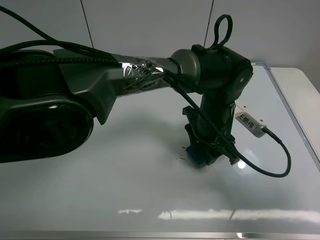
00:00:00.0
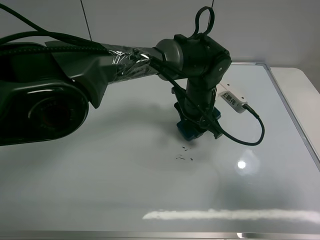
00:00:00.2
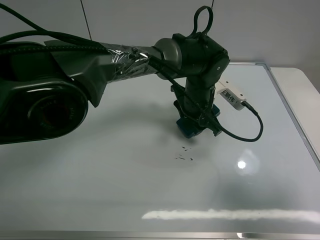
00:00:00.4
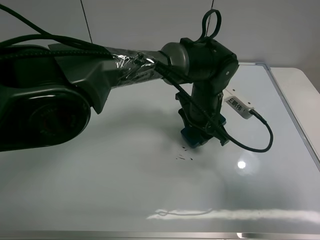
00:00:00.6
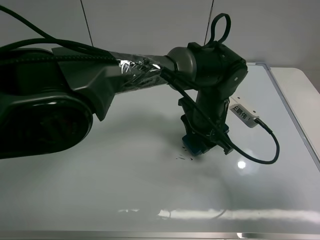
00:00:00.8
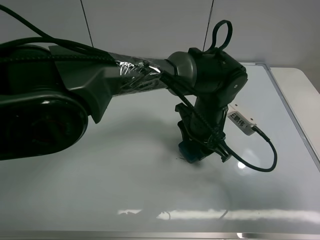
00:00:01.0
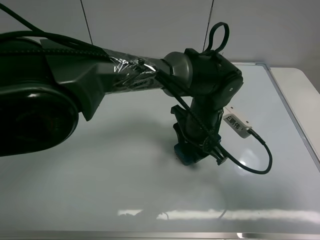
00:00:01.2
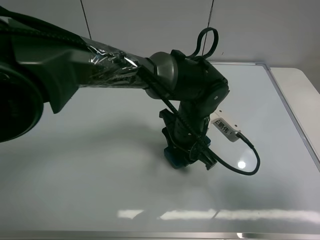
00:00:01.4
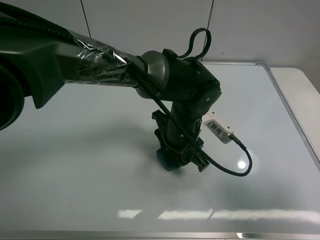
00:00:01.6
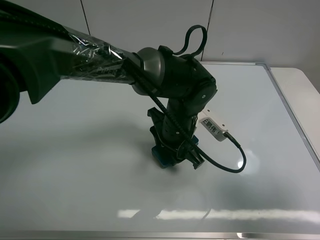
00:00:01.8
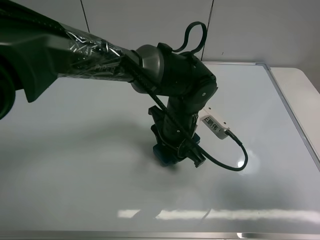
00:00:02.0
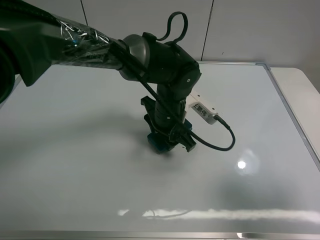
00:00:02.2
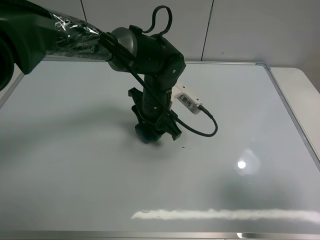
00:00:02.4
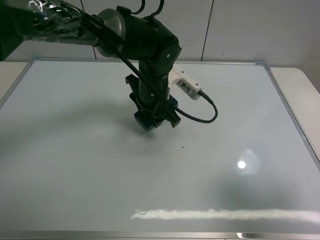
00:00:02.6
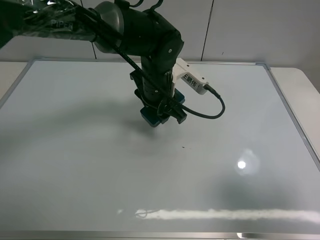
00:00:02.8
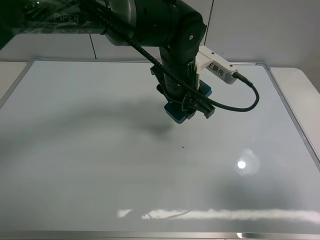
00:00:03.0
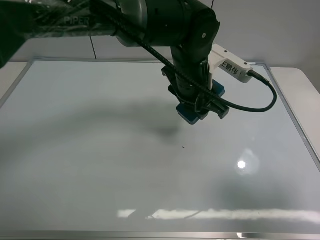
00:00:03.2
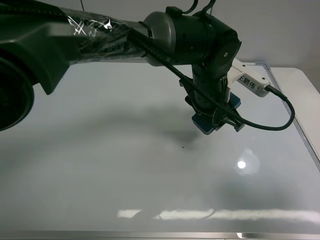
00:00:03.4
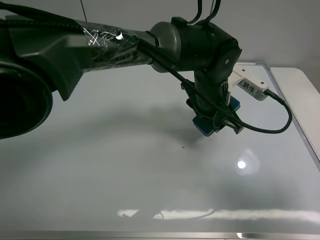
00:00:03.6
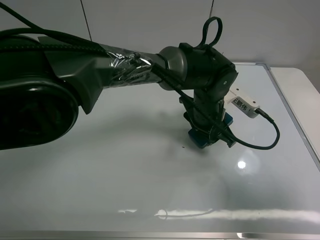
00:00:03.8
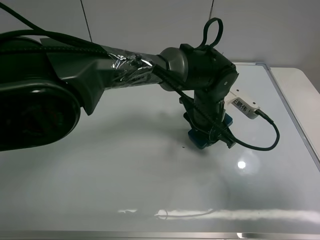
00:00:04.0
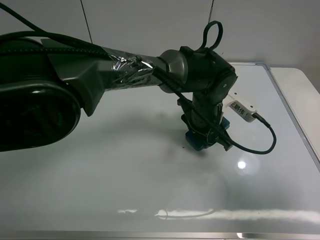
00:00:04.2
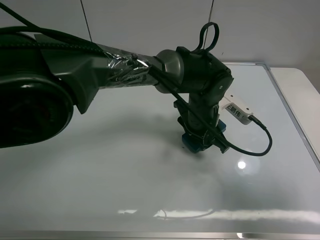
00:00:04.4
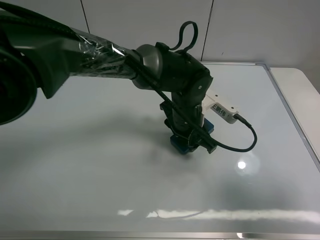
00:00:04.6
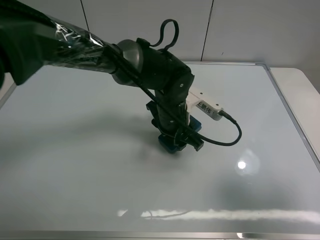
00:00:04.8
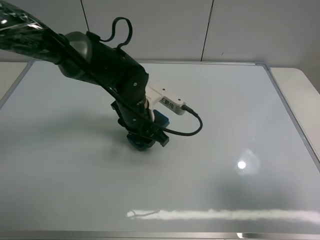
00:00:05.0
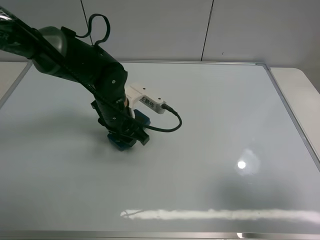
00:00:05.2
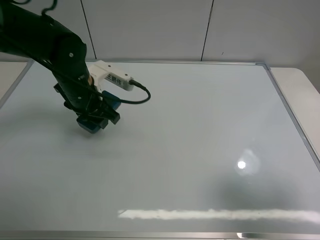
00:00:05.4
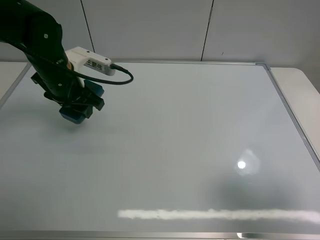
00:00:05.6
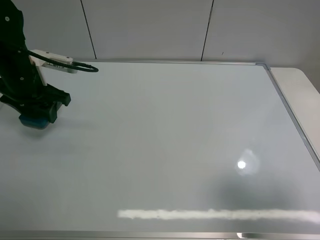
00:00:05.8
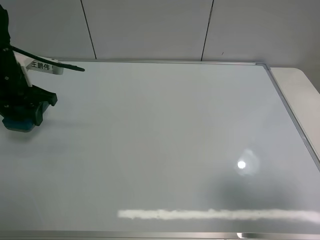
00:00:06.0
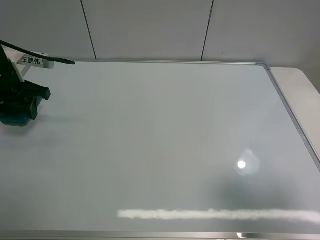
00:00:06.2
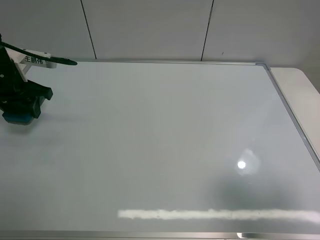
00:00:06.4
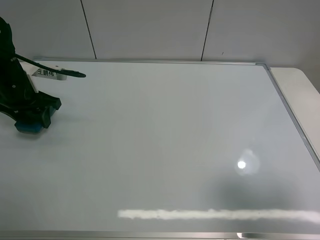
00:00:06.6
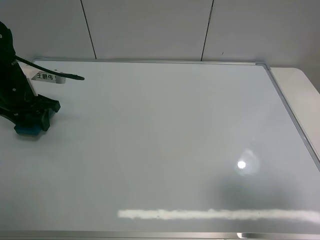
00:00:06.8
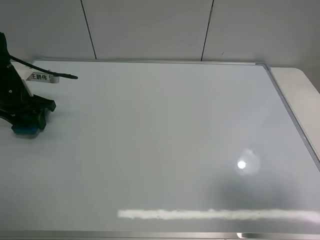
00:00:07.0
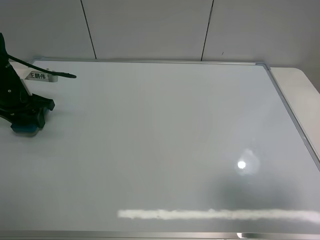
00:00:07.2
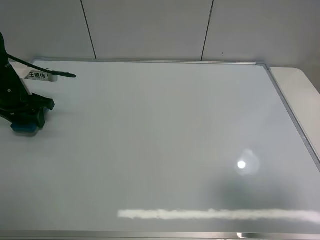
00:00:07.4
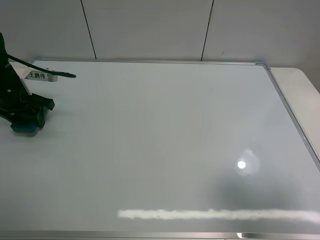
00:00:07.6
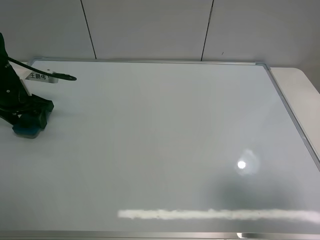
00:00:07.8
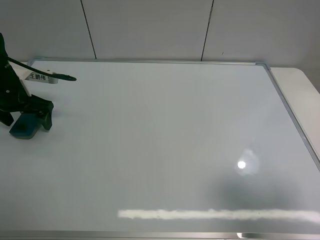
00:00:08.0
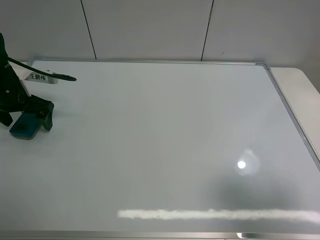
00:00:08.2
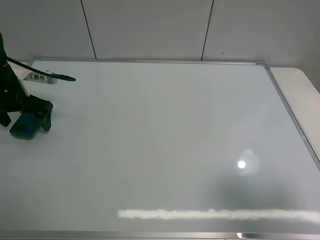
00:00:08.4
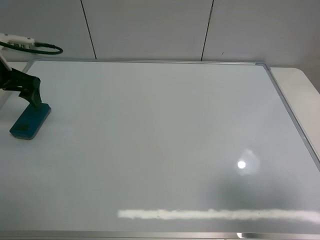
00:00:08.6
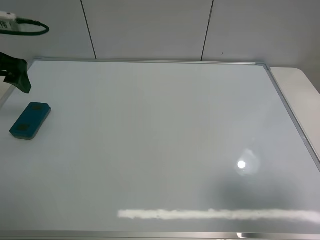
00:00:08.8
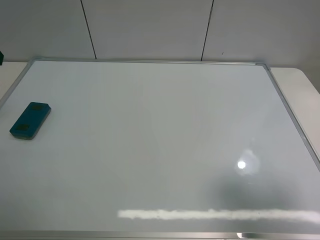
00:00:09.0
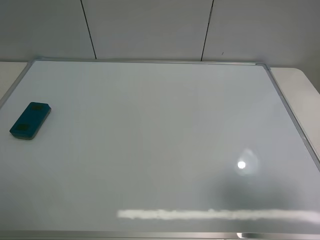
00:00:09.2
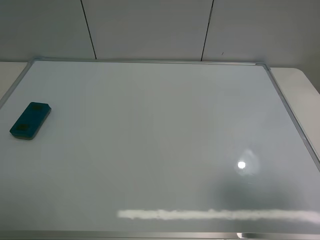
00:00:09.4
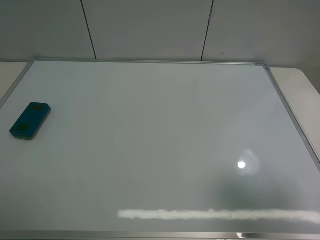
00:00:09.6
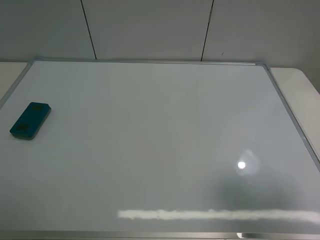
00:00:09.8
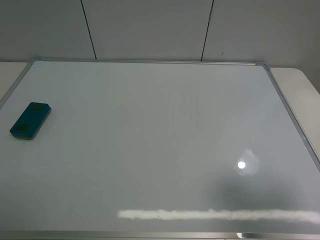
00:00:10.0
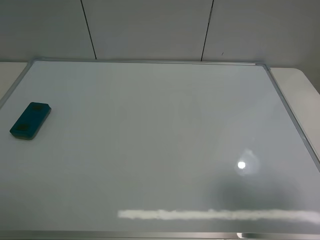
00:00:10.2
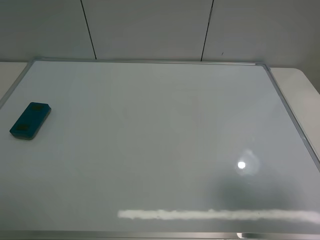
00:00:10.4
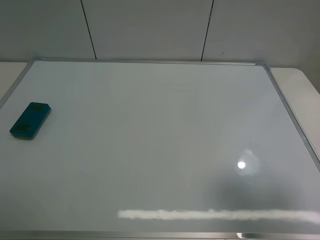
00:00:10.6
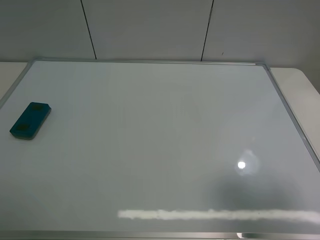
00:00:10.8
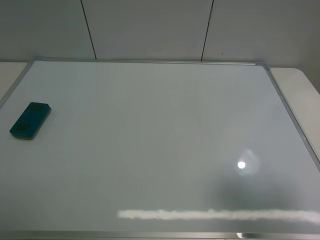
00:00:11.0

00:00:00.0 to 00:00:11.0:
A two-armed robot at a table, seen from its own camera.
Task of the whole recording: use the left claw to pick up the whiteboard eraser, wipe the notes on the whiteboard clean, and then put them back in place.
Step, 00:00:00.0 to 00:00:05.0: Grasp the eraser and wipe the blackboard with the left gripper.
Step, 00:00:05.2 to 00:00:08.0: Place the eraser with the left gripper.
00:00:00.0 to 00:00:01.6: The left gripper travels to the left by some 5 cm.
00:00:01.6 to 00:00:03.2: The left gripper heads upward, covering roughly 10 cm.
00:00:03.2 to 00:00:04.8: The left gripper moves downward and to the left, roughly 10 cm.
00:00:04.8 to 00:00:06.2: The left gripper travels to the left by about 30 cm.
00:00:06.2 to 00:00:07.8: The left gripper is displaced downward by roughly 5 cm, and opens up.
00:00:07.8 to 00:00:09.4: The left gripper heads upward and backward, covering about 35 cm, and opens.

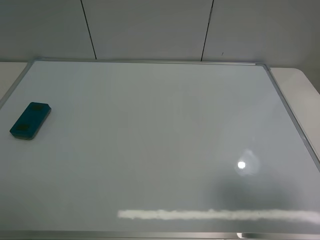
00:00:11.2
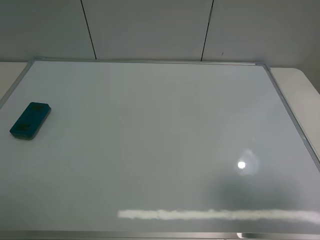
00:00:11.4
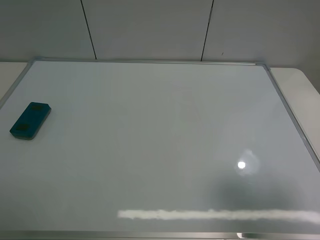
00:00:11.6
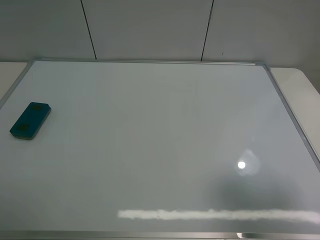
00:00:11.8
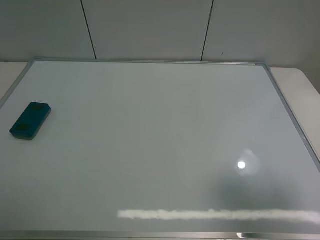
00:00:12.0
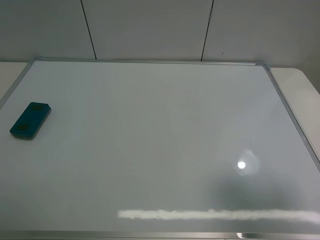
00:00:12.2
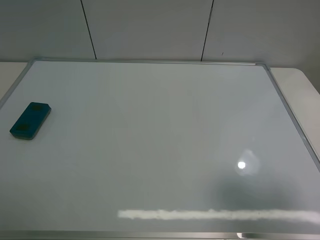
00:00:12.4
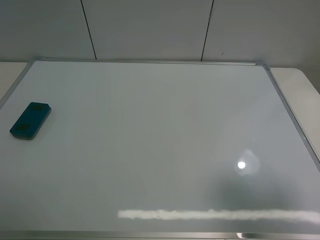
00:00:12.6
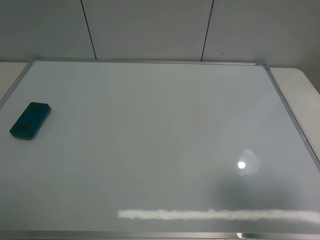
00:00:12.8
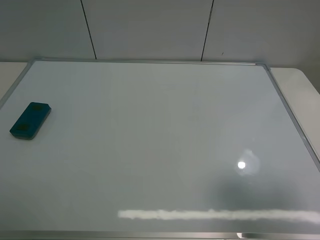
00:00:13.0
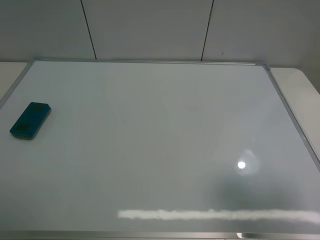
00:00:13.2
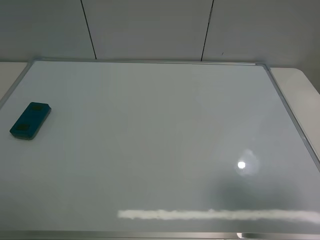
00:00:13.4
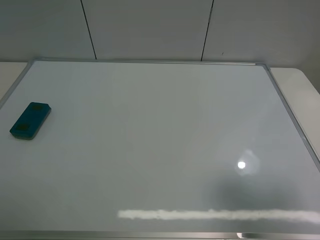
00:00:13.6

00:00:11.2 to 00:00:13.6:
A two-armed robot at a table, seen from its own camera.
Task of the whole recording: use the left claw to pick up the whiteboard eraser, wipe the notes on the whiteboard clean, and then put them back in place.
00:00:12.4 to 00:00:13.6: Both grippers stay about where they are.
